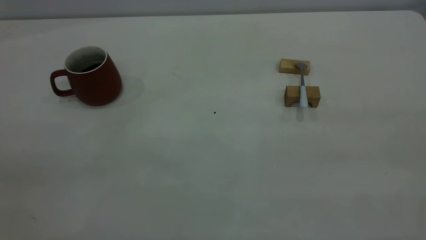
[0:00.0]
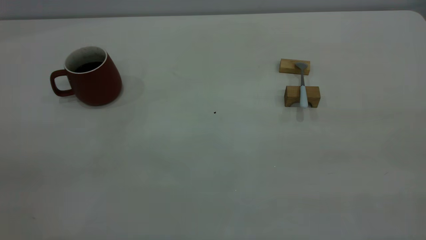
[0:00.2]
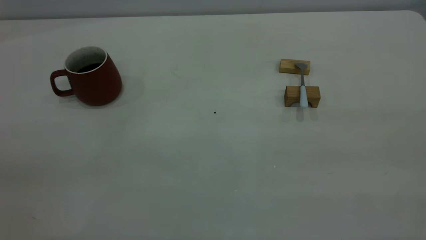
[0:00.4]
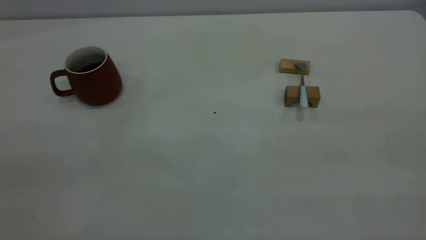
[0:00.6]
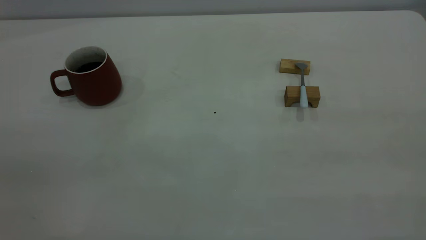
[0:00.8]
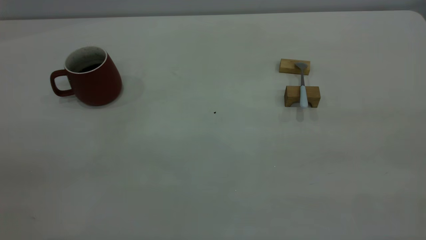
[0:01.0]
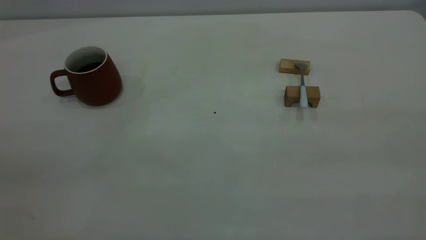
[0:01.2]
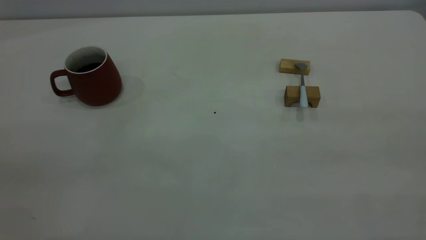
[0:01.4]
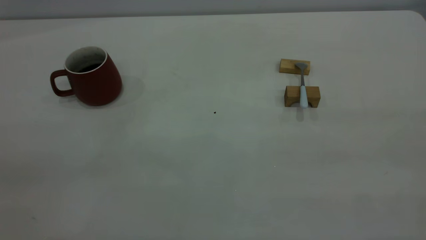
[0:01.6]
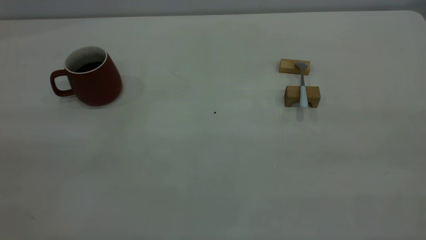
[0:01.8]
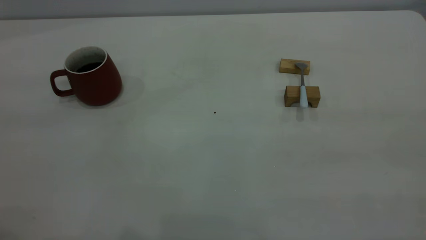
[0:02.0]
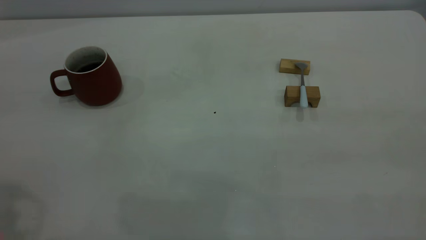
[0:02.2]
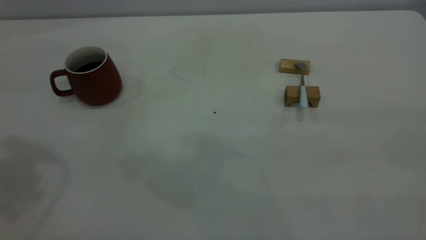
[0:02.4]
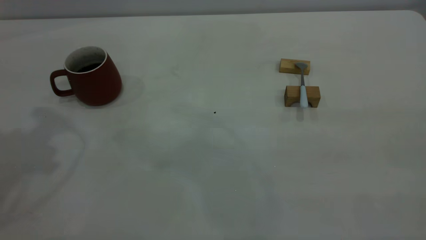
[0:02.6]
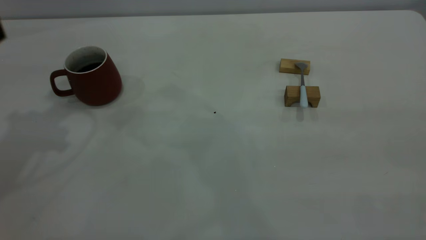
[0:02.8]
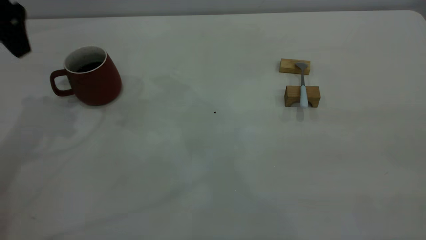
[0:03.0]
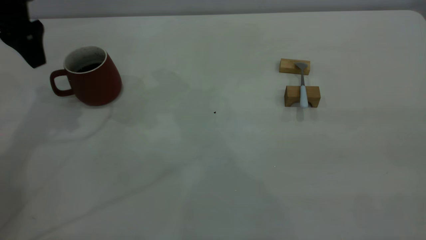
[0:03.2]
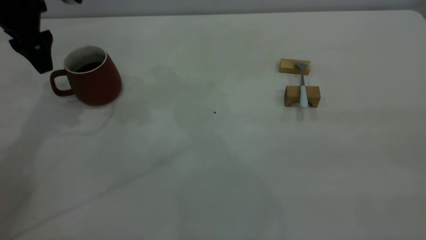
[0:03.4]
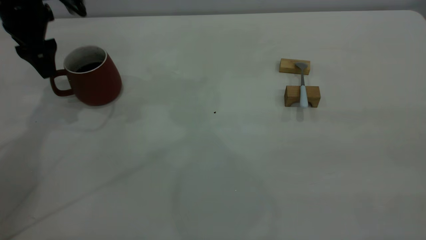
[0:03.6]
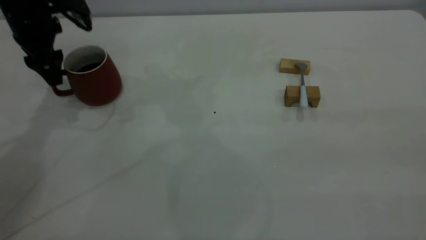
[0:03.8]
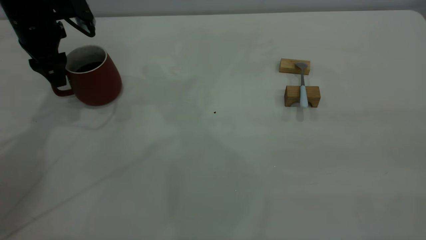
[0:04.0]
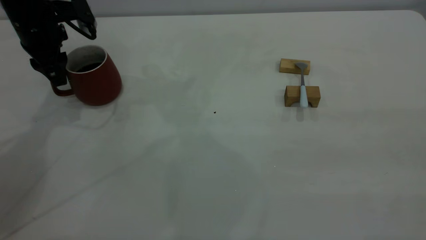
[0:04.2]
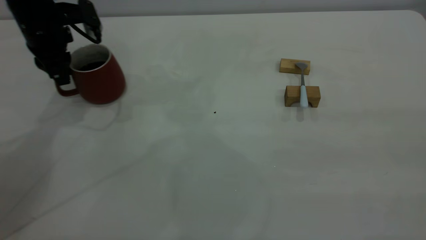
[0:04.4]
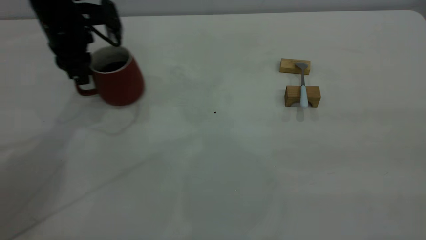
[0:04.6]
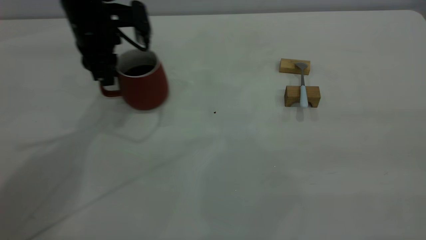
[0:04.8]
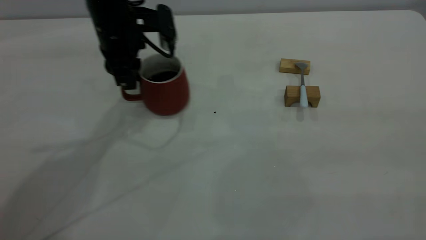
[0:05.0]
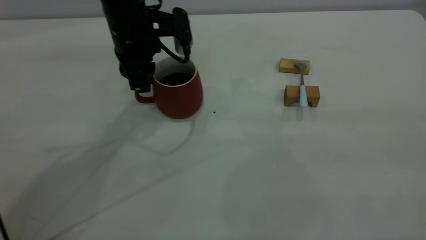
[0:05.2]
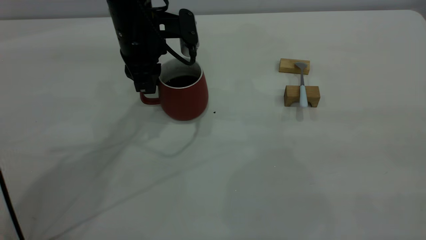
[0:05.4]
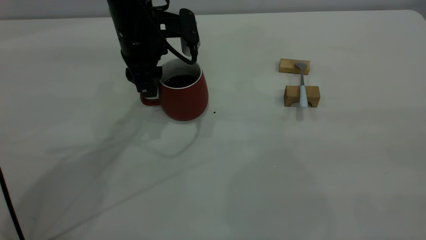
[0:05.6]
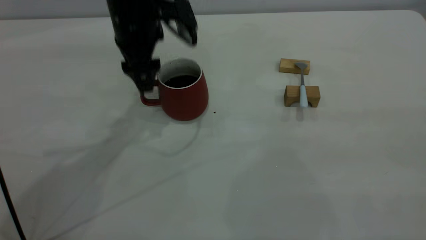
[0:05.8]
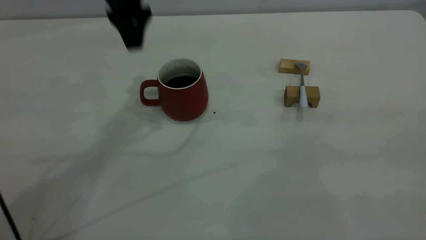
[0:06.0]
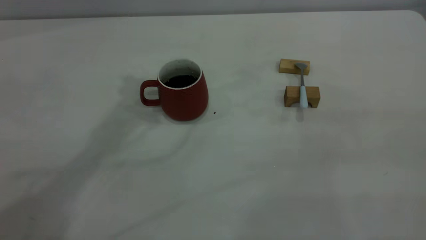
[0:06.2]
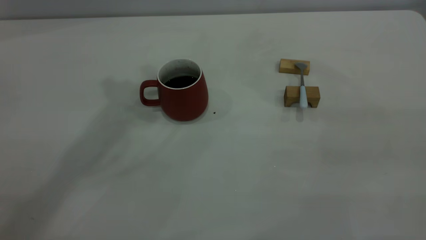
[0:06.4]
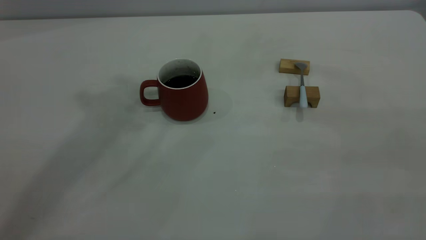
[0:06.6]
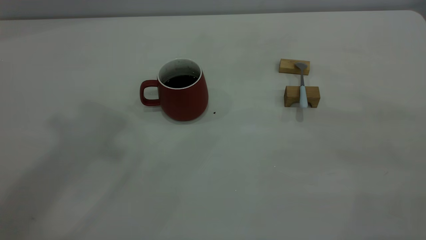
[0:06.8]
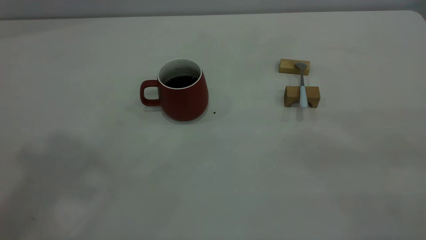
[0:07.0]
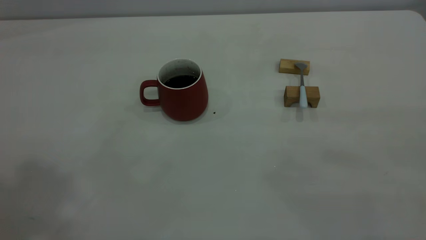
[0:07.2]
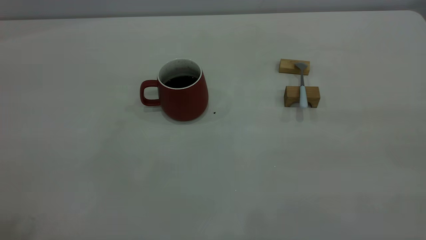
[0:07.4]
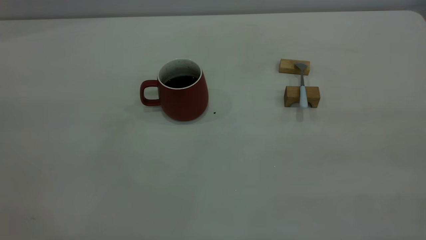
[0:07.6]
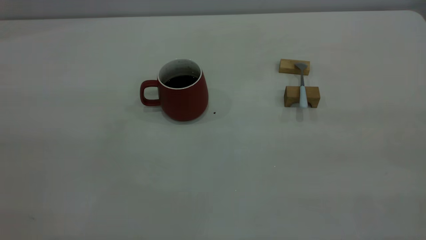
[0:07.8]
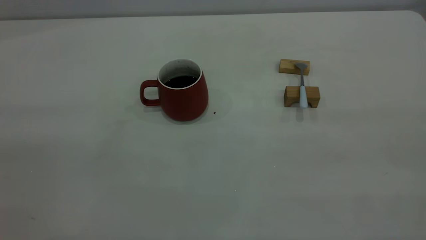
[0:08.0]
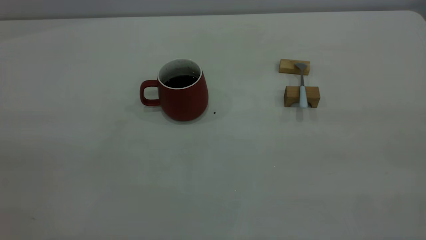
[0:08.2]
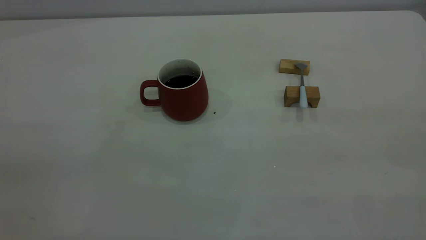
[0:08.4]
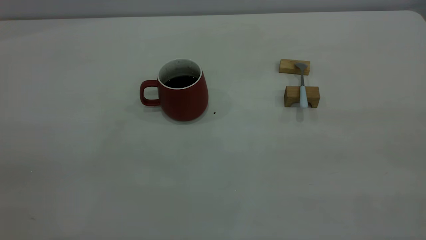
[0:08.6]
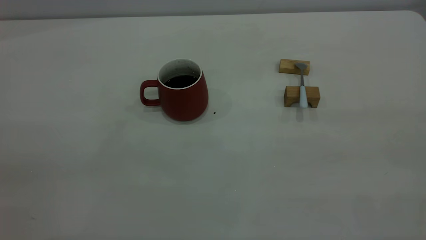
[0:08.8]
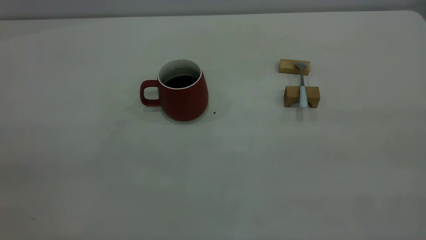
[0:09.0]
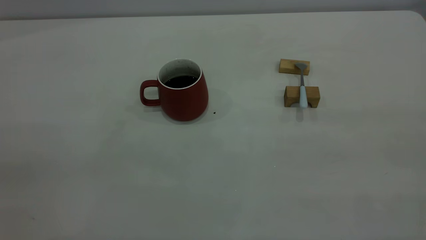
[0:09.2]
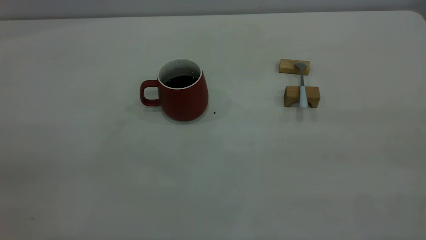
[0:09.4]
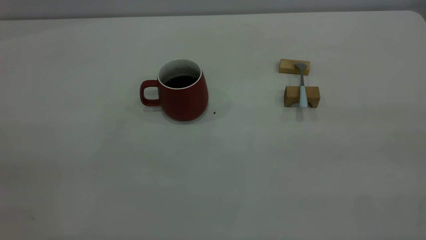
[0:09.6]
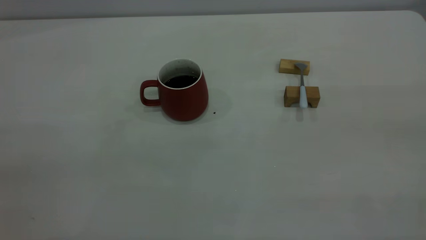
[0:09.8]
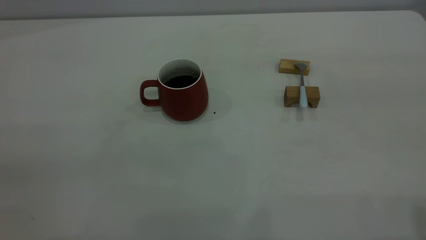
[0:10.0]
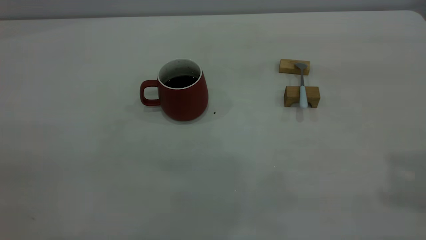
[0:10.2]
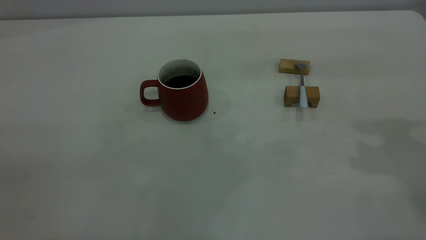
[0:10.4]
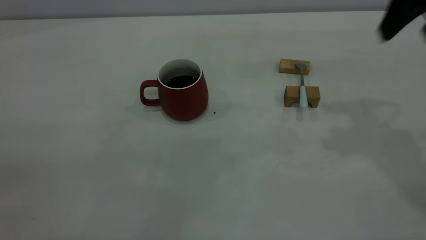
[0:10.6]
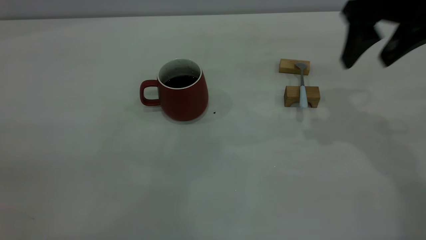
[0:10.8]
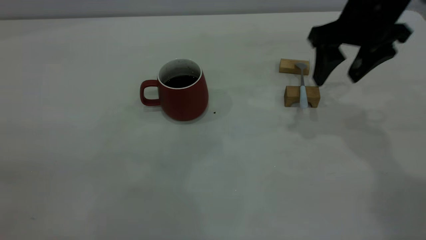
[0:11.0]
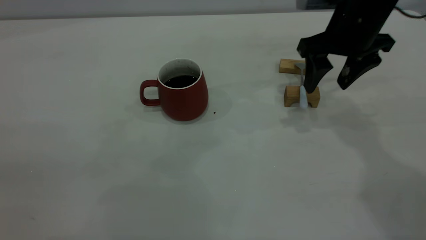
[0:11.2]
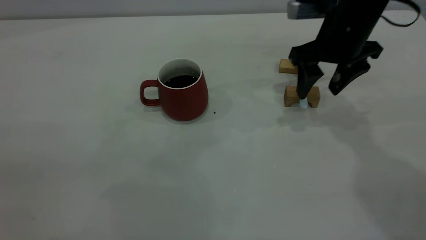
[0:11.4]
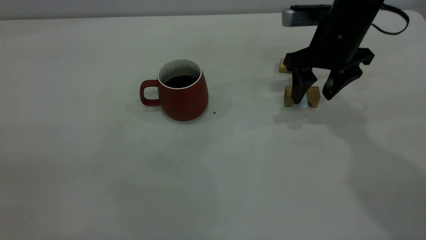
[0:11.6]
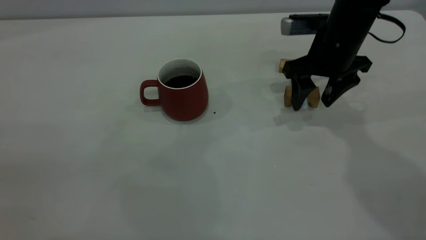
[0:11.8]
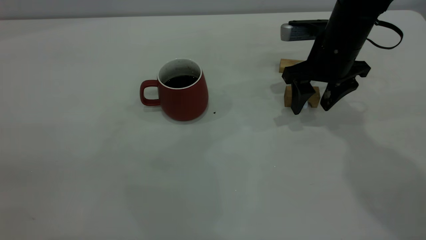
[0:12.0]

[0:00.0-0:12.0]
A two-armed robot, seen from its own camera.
Step, 0:00.0 to 0:05.8: Move the cup with coffee to the center of view.
0:00.0 to 0:01.6: Both grippers stay about where they are.
0:01.6 to 0:03.0: The left gripper is displaced forward by some 40 cm.
0:03.0 to 0:04.4: The left gripper travels downward and forward by about 10 cm, and closes up.
0:04.4 to 0:06.0: The left gripper shifts some 20 cm to the right and upward, and opens.
0:06.0 to 0:07.6: The left gripper is displaced backward, upward and to the left by approximately 40 cm, and closes its fingers.
0:10.4 to 0:12.0: The right gripper moves downward, forward and to the left, some 30 cm.

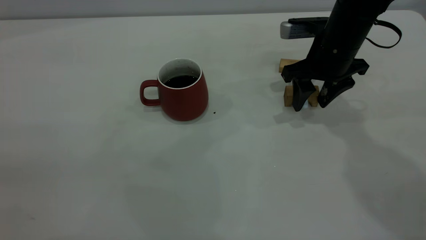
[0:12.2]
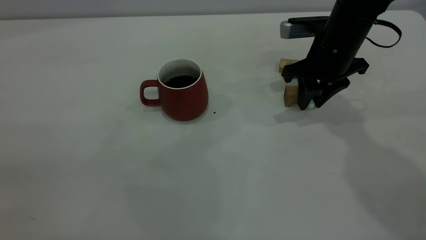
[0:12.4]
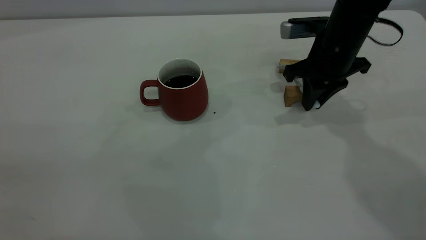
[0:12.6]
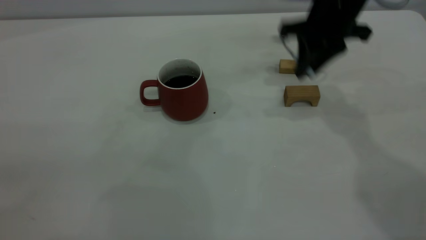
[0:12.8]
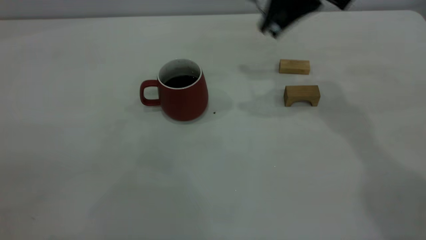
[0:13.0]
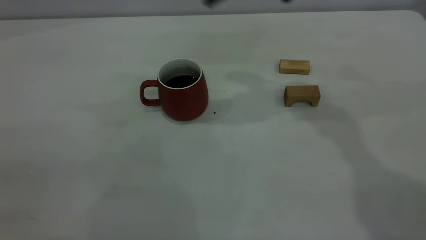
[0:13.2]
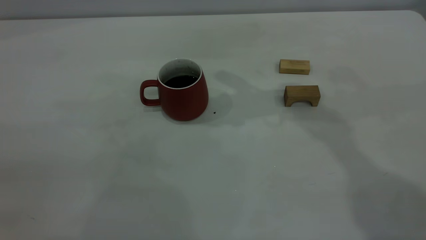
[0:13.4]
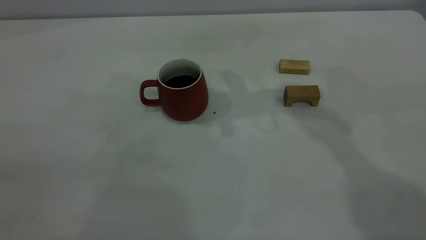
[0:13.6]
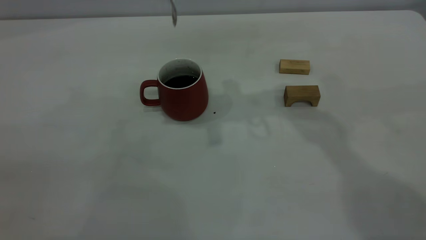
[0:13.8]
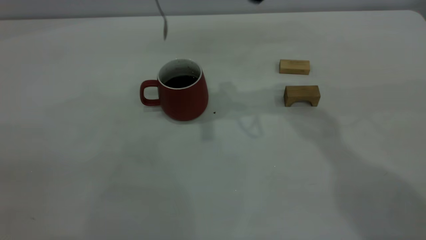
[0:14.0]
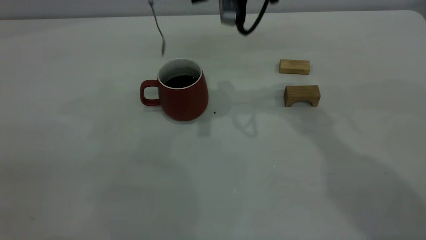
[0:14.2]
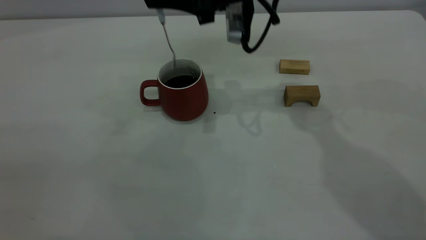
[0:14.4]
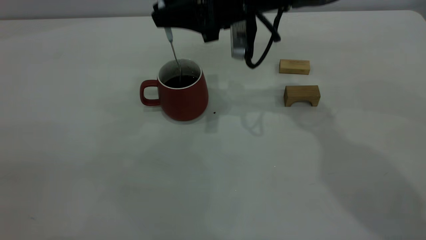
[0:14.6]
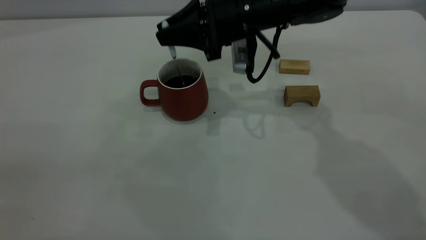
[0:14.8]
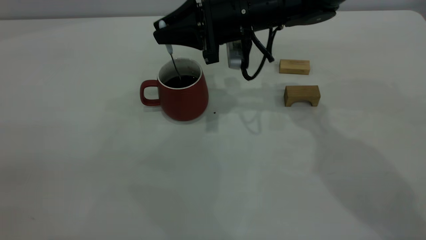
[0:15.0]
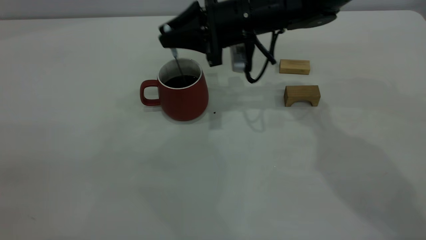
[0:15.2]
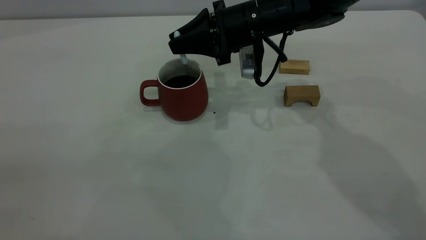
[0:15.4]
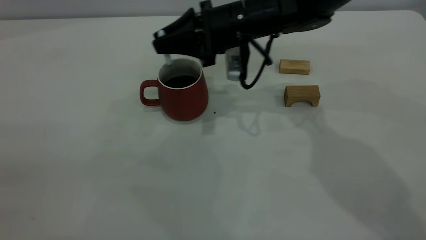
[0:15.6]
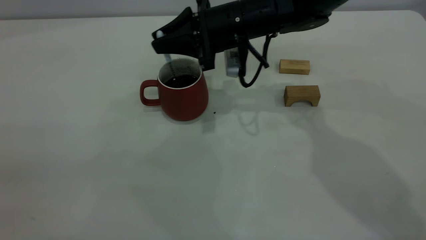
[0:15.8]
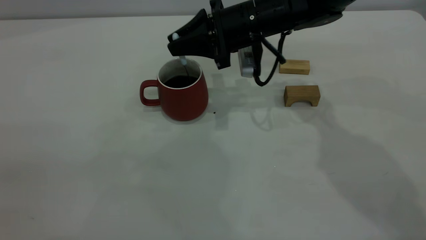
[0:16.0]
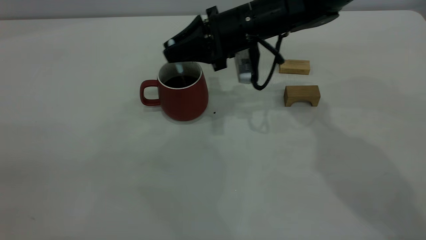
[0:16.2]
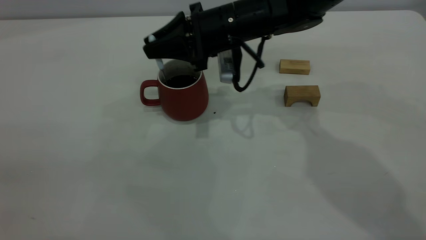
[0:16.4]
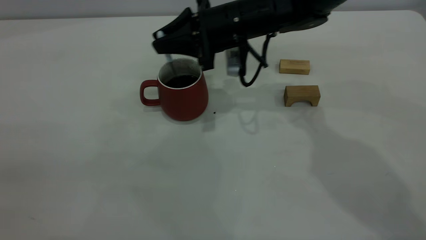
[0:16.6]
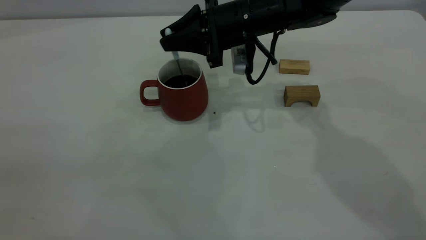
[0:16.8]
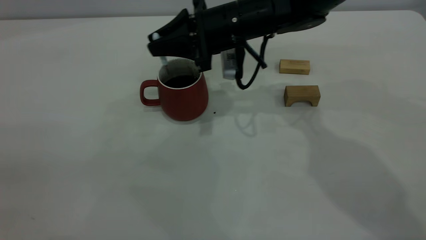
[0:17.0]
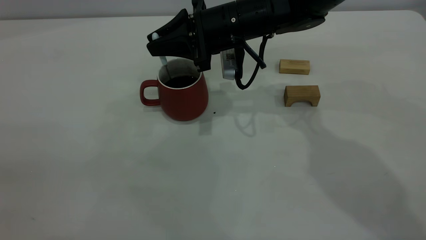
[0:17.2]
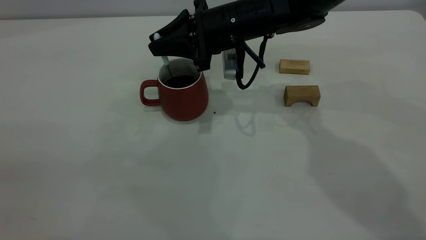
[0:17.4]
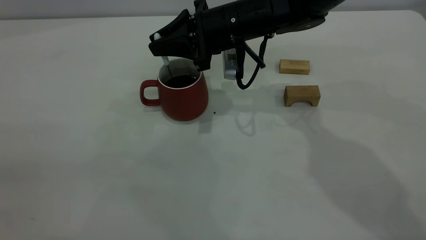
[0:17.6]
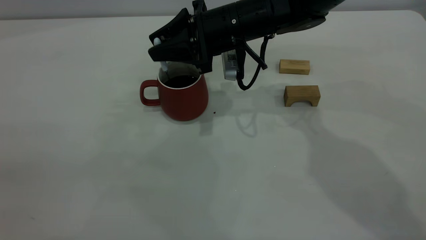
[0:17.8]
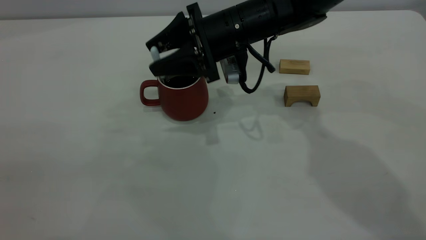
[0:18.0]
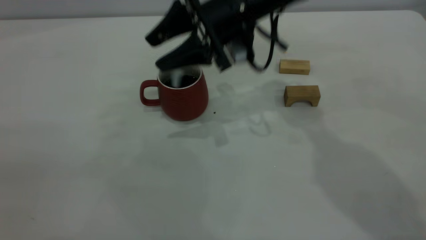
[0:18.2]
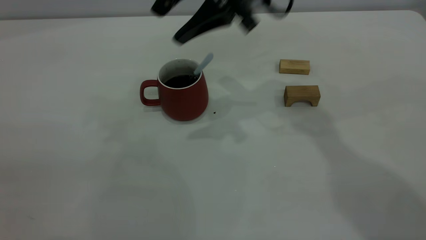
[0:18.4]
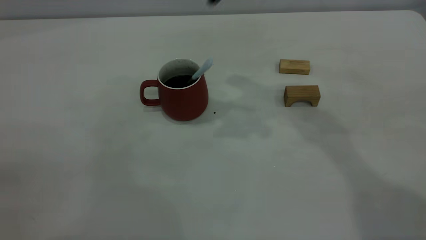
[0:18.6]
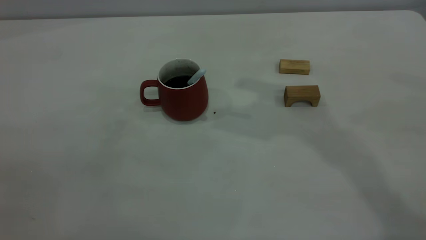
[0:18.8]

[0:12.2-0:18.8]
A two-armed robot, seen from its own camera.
Step, 0:12.8 to 0:18.2: Stir the coffee in the cup.
0:12.2 to 0:13.8: The right gripper goes about 25 cm upward and to the left, and closes its fingers.
0:13.8 to 0:15.4: The right gripper heads downward, covering some 15 cm.
0:15.4 to 0:17.2: The grippers make only small movements.
0:17.2 to 0:18.8: The right gripper goes some 30 cm upward, and opens its fingers.
